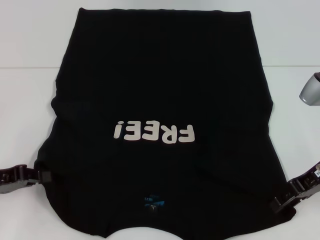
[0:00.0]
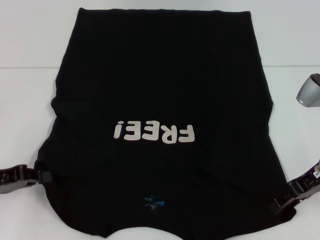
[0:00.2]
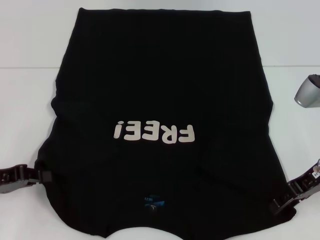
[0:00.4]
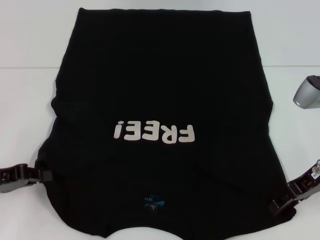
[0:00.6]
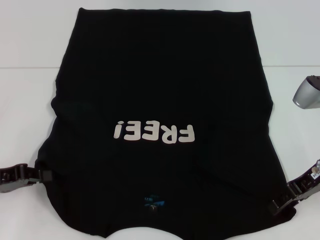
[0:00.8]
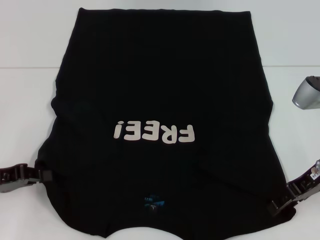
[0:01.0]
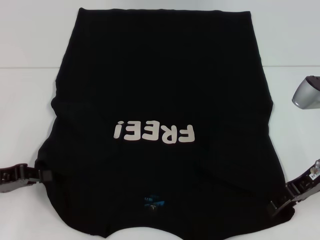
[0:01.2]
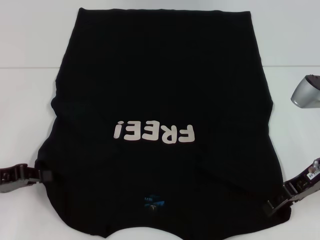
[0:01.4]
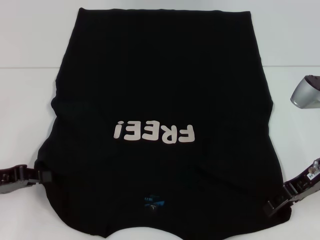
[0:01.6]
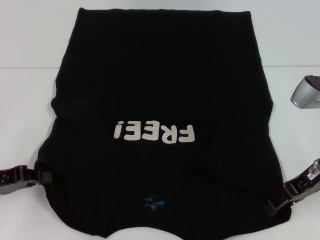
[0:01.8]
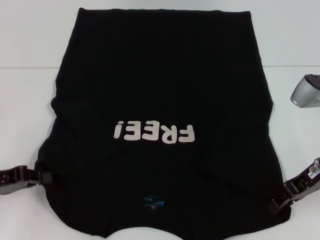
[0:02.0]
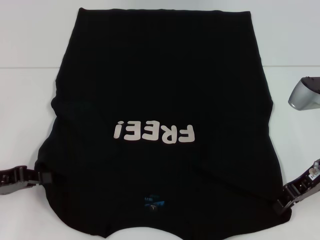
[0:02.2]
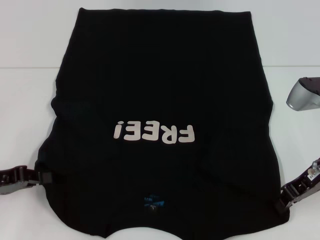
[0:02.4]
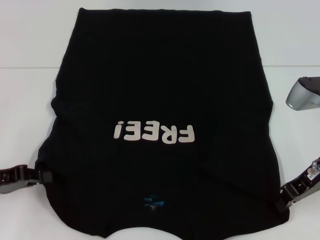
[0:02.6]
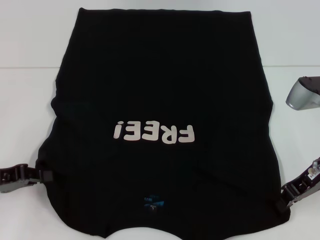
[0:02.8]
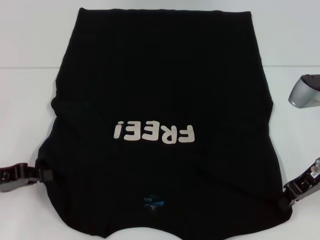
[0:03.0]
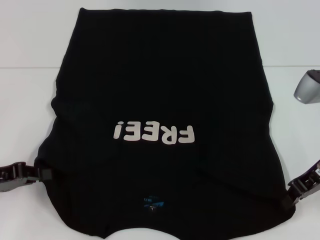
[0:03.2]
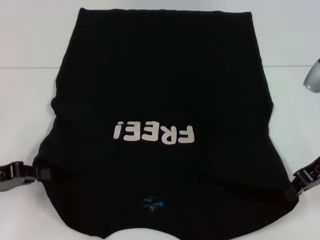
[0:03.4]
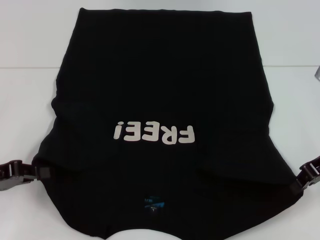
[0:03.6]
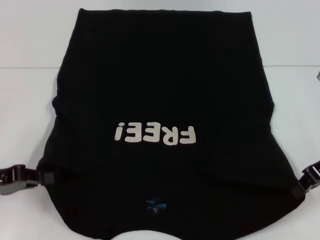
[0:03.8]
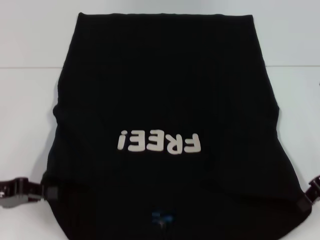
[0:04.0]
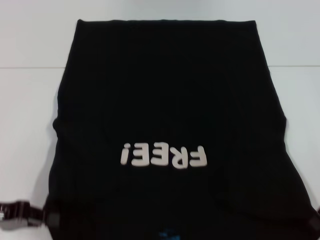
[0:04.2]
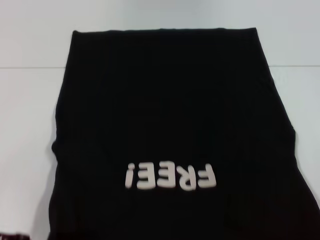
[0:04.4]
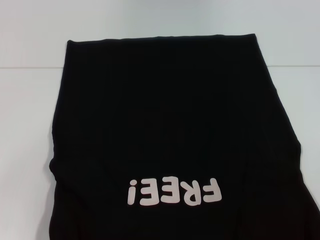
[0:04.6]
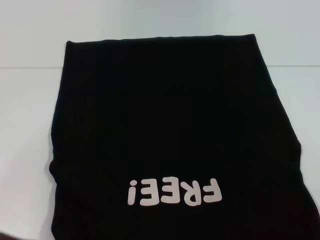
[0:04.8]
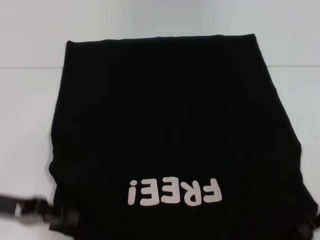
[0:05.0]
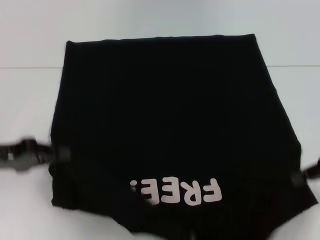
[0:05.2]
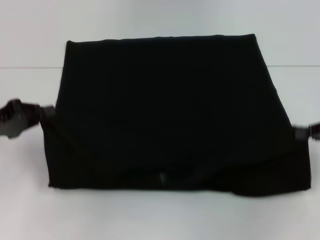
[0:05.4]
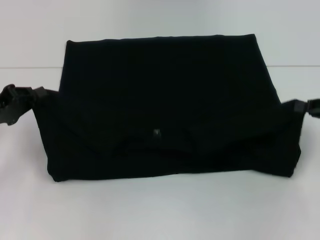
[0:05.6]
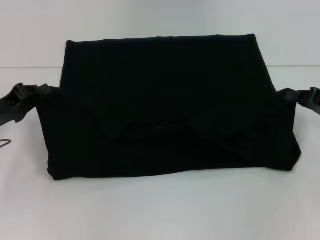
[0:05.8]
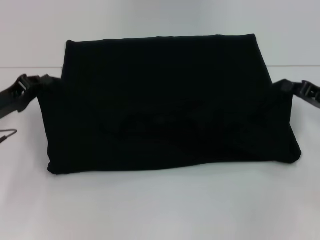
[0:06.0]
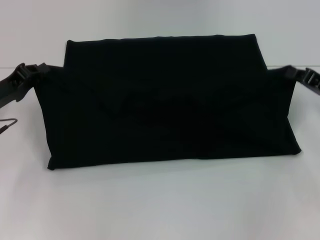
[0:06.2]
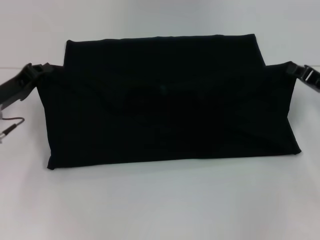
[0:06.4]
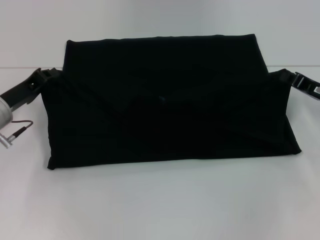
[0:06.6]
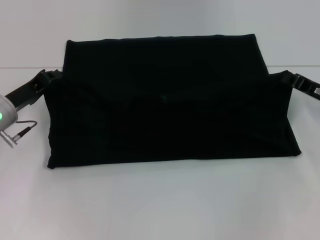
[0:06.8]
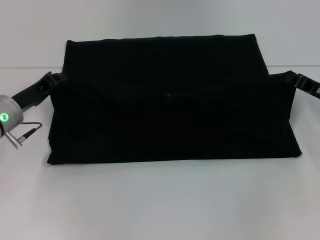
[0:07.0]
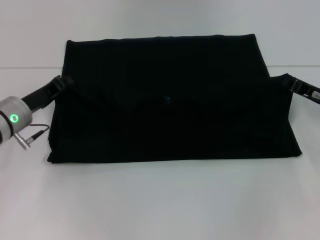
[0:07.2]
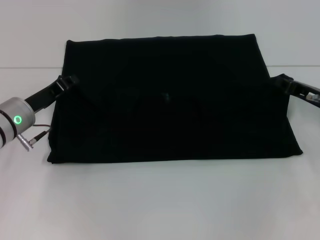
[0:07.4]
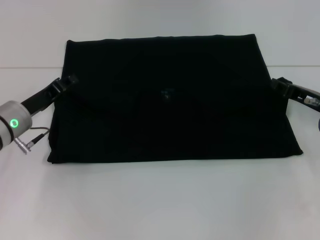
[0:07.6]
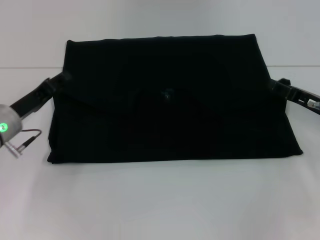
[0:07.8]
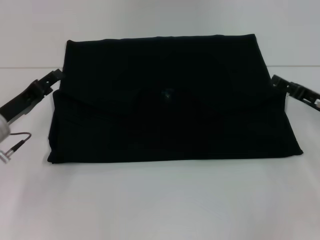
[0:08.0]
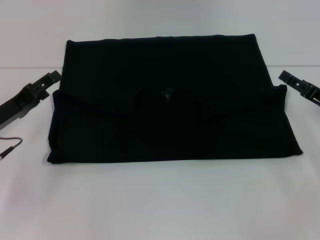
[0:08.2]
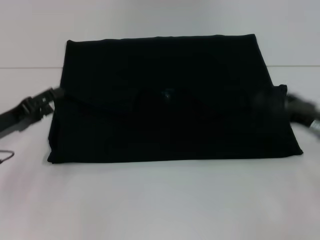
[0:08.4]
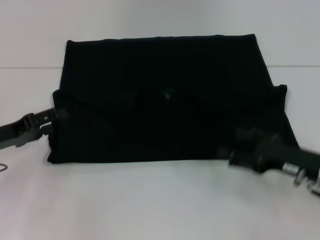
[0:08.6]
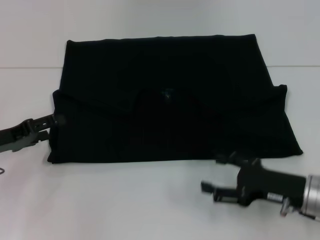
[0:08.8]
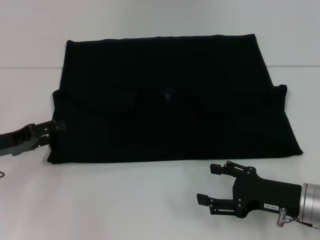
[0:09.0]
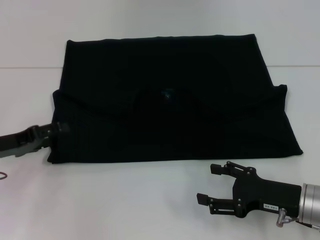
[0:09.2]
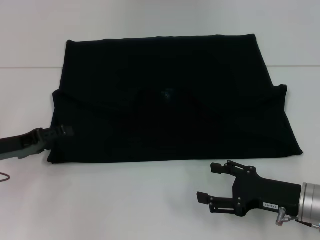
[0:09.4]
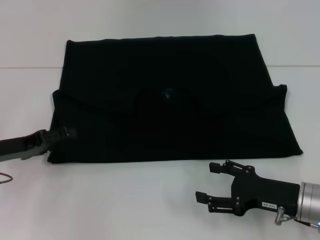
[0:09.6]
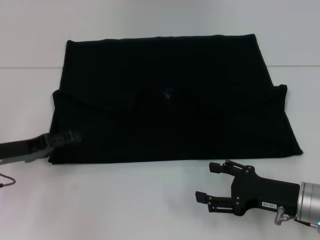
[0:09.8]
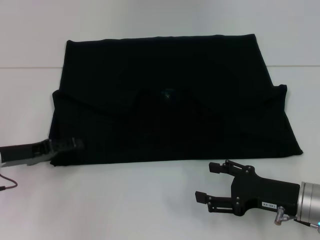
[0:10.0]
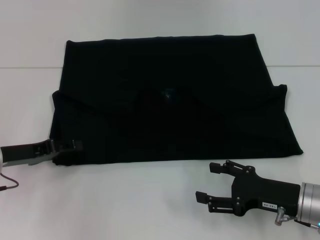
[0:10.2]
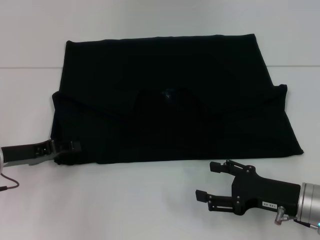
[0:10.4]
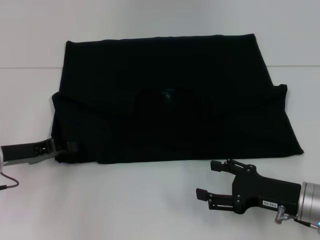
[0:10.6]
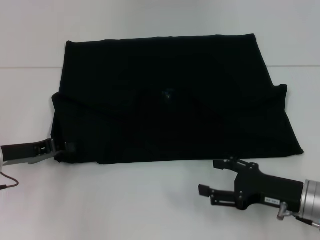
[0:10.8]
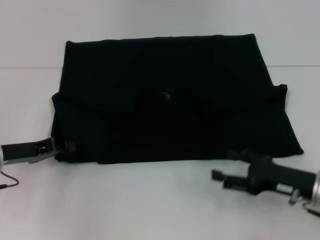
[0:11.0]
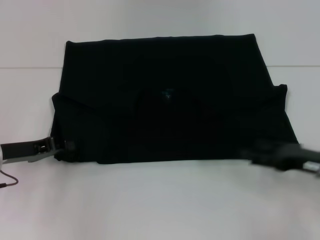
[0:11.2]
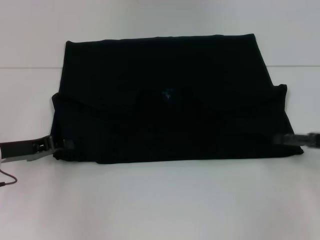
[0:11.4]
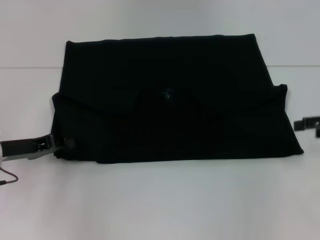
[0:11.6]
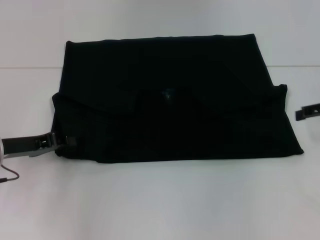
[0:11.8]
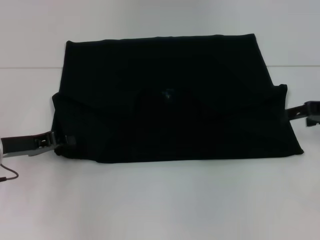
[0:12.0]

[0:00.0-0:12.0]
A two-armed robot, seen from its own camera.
Step, 0:00.0 to 0:03.0: Grab the bottom right corner with your right hand.
Step, 0:03.2 to 0:08.4: Fold the clothes with your left hand.
Step, 0:03.2 to 0:08.4: Fold the clothes with your right hand.
0:00.0 to 0:01.6: Neither gripper changes place.
0:01.6 to 0:03.0: The right gripper closes its fingers.
0:03.0 to 0:04.4: The right gripper moves to the right, about 5 cm.
0:04.4 to 0:06.0: The right gripper moves downward and forward, roughly 10 cm, while the left gripper moves forward, approximately 10 cm.
0:06.0 to 0:07.6: The left gripper heads to the right, covering approximately 5 cm.
0:07.6 to 0:09.0: The right gripper moves backward and to the left, about 15 cm, and opens up, while the left gripper moves to the left and backward, roughly 10 cm, and opens its fingers.
0:09.0 to 0:10.4: The grippers make only small movements.
0:10.4 to 0:12.0: The left gripper closes up. The right gripper goes approximately 20 cm forward, upward and to the right.

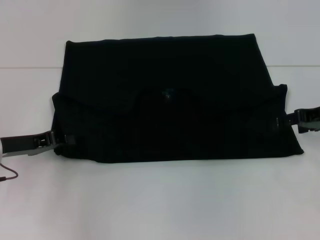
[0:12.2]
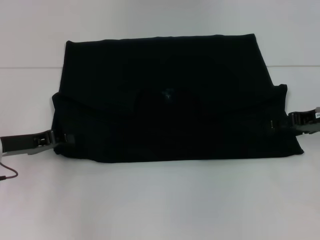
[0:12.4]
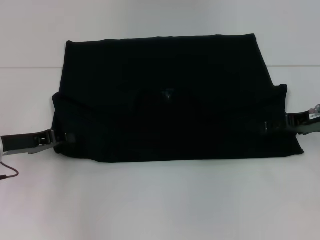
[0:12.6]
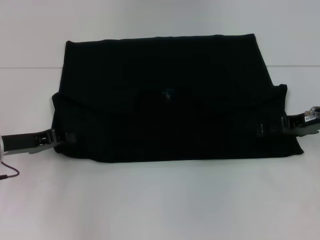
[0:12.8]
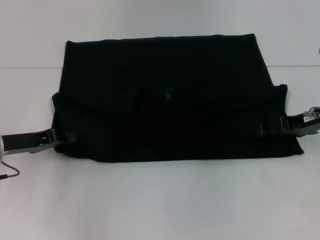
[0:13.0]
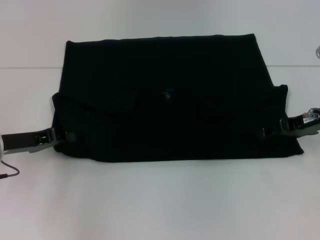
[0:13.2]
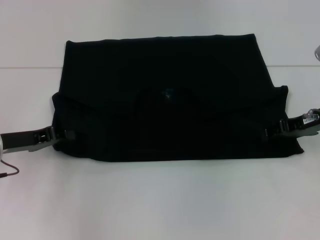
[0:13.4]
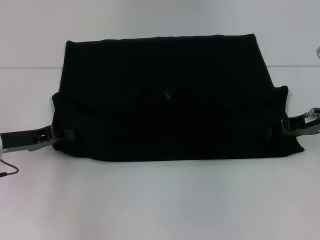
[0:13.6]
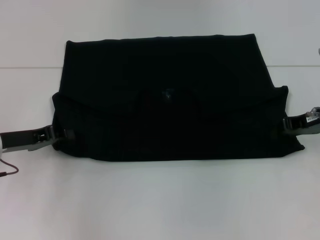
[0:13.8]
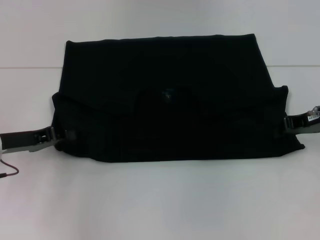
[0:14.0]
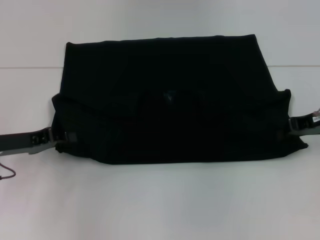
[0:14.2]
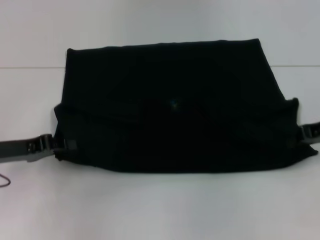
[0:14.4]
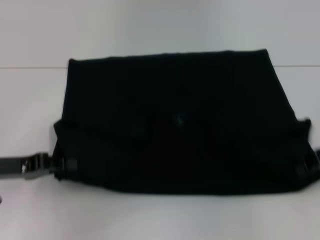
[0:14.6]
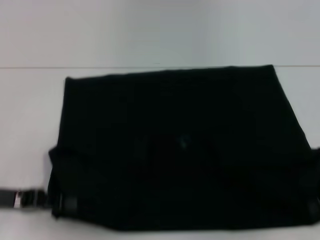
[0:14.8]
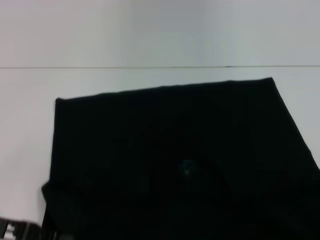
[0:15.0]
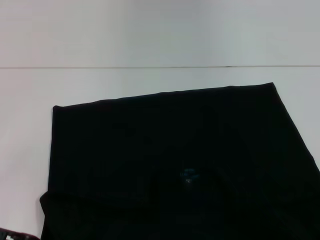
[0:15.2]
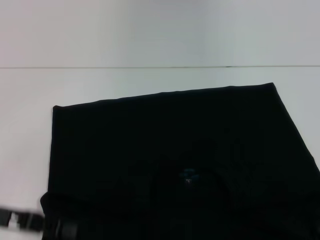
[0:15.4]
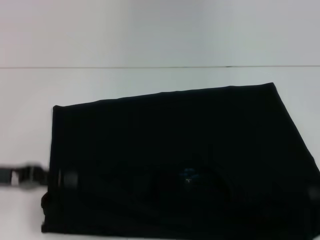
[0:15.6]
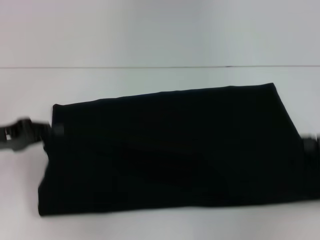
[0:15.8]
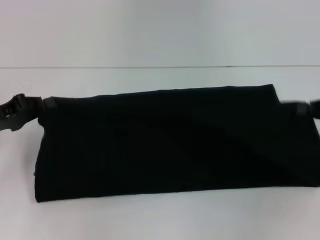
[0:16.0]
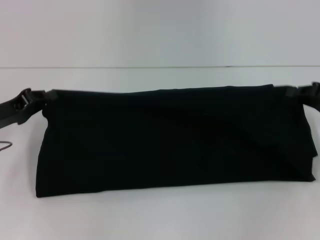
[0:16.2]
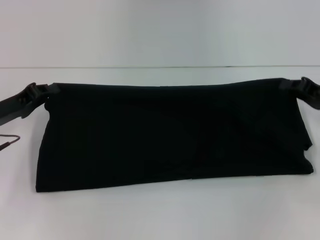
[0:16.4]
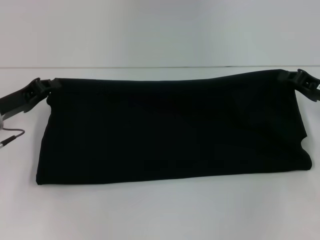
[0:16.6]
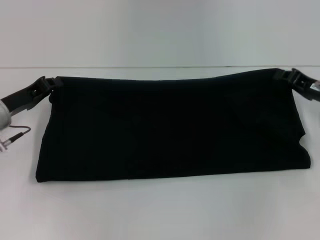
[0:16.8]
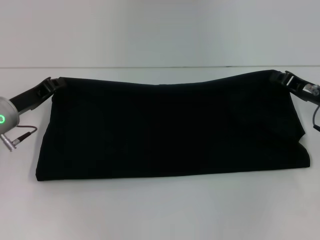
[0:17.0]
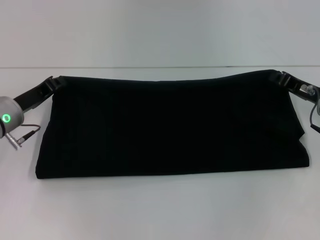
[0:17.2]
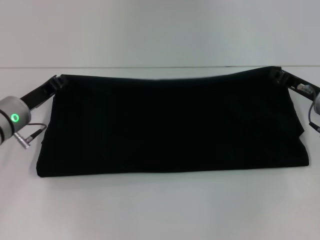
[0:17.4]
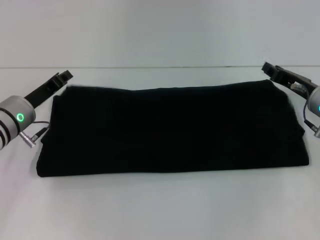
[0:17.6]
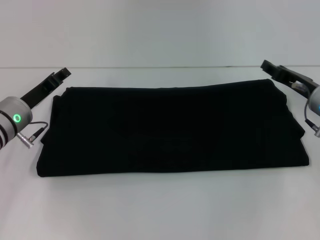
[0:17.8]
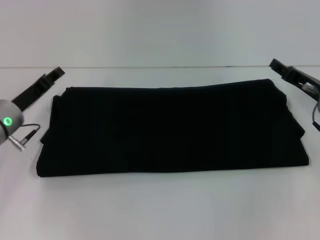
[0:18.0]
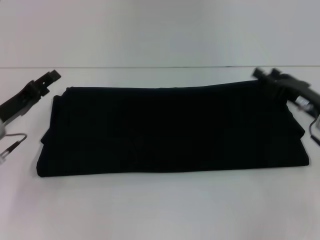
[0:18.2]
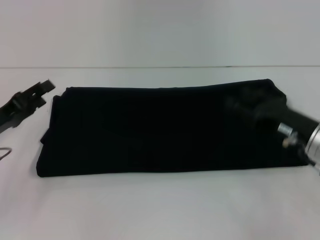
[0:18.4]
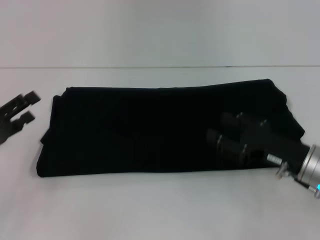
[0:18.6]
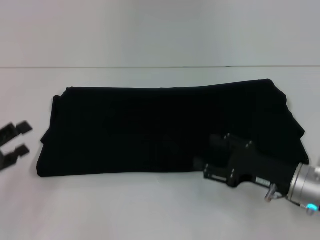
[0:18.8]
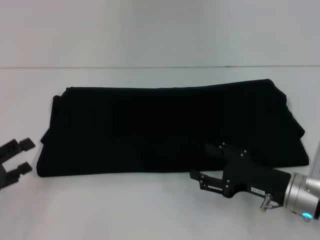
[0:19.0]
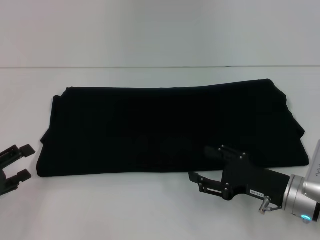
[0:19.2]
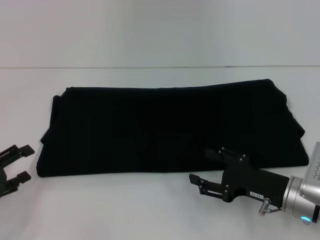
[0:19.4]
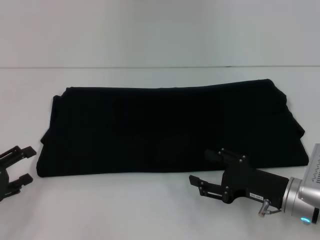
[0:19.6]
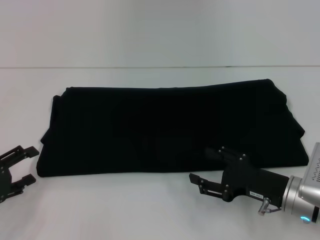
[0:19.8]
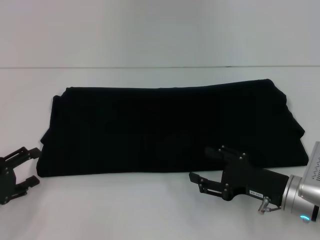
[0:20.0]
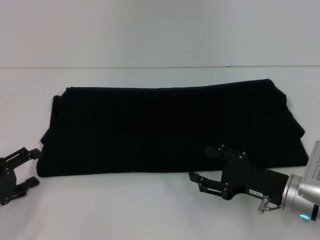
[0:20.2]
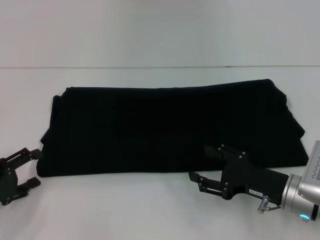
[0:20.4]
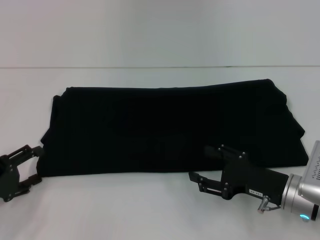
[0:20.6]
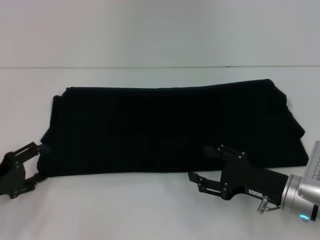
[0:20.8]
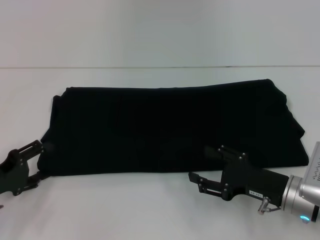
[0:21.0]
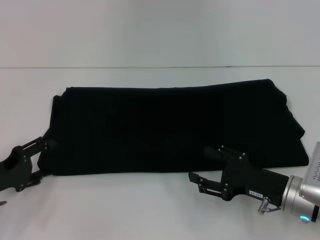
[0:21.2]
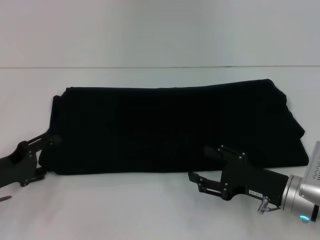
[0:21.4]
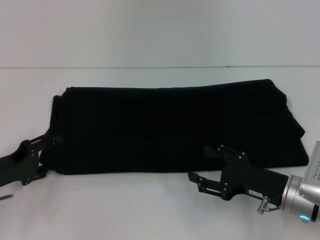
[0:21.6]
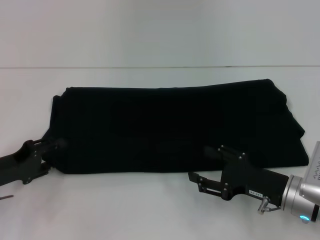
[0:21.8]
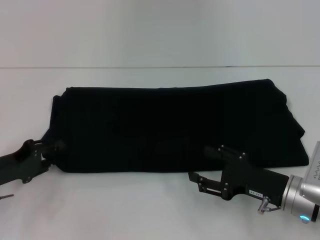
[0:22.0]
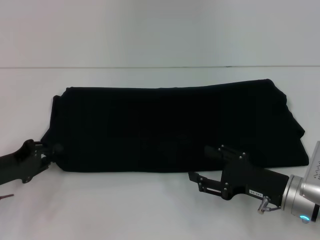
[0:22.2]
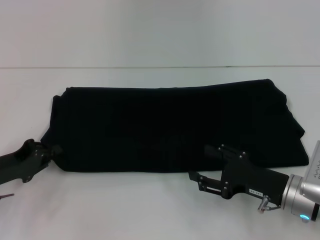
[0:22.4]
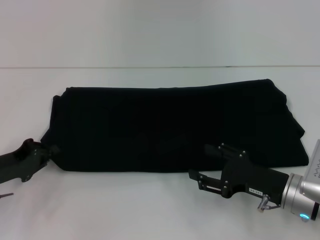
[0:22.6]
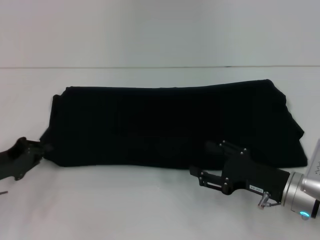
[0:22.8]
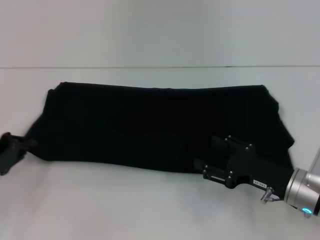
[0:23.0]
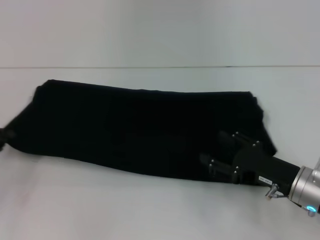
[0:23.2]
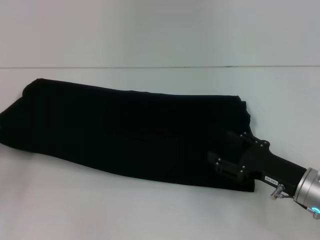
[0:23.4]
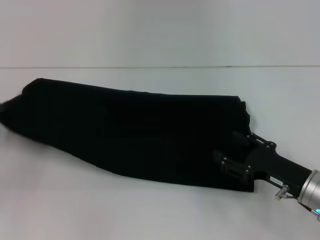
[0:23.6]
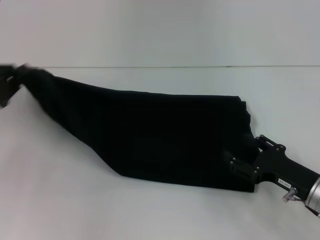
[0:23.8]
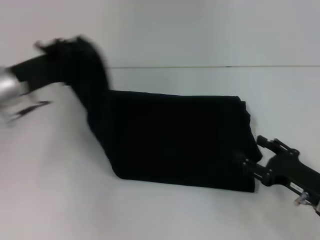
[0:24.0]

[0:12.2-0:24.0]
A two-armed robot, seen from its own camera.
Step, 0:12.2 to 0:15.0: Pull the clothes with your left hand.
Step, 0:12.2 to 0:15.0: Pull the clothes with your right hand.
Step, 0:15.2 to 0:18.0: Fold the clothes with your right hand.
0:12.2 to 0:13.6: The right gripper closes its fingers.
0:13.6 to 0:15.2: The right gripper is displaced backward and to the right by about 15 cm, and closes up. The left gripper heads backward, covering some 10 cm.
0:15.2 to 0:16.6: The two grippers go about 10 cm forward.
0:16.6 to 0:18.2: The right gripper opens its fingers; the left gripper opens.
0:18.2 to 0:19.6: The right gripper shifts approximately 10 cm backward, to the left and downward. Meanwhile the left gripper travels backward and to the left by approximately 15 cm.
0:19.6 to 0:21.0: There are only small adjustments of the grippers.
0:21.0 to 0:22.6: The left gripper closes up.
0:22.6 to 0:24.0: The right gripper heads to the right, covering approximately 5 cm. The left gripper is displaced upward, forward and to the right by approximately 15 cm.
